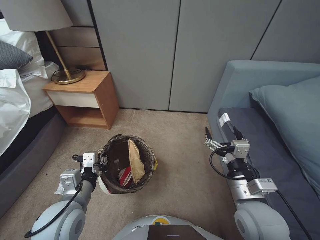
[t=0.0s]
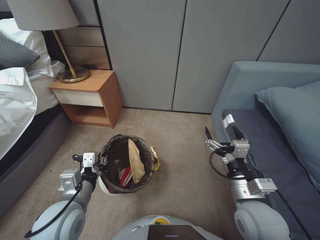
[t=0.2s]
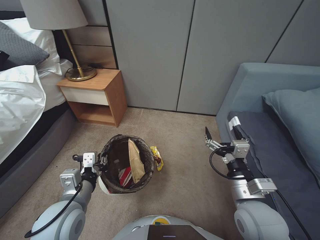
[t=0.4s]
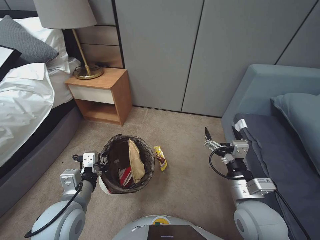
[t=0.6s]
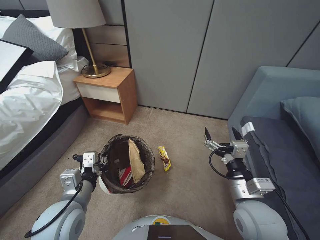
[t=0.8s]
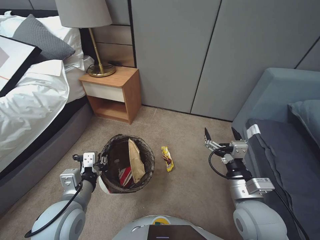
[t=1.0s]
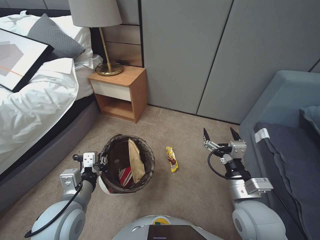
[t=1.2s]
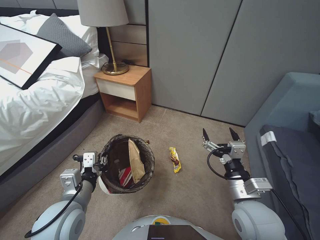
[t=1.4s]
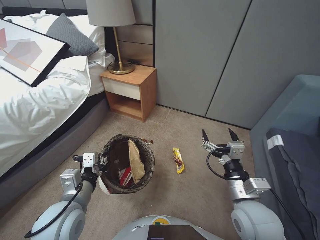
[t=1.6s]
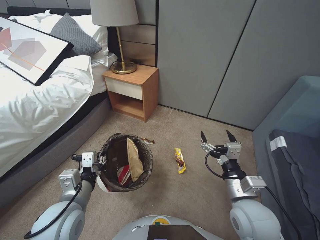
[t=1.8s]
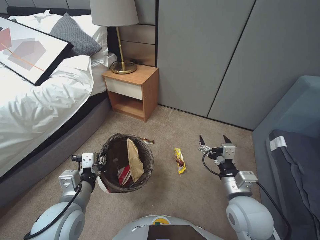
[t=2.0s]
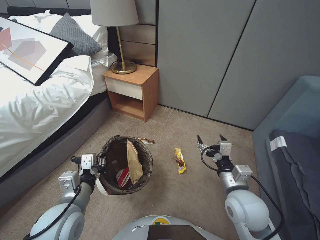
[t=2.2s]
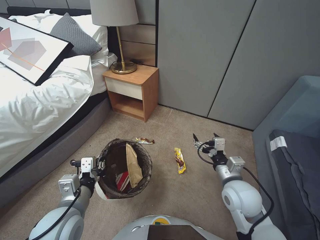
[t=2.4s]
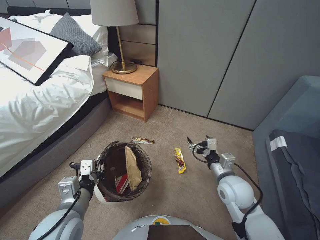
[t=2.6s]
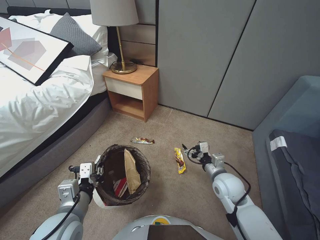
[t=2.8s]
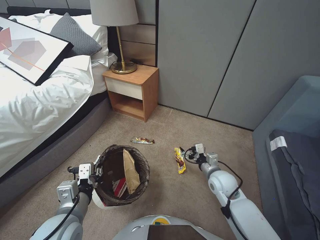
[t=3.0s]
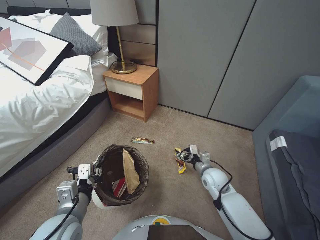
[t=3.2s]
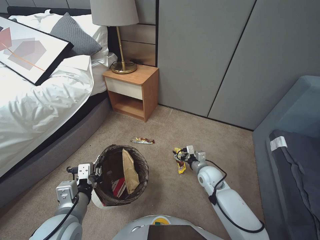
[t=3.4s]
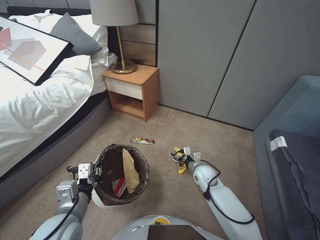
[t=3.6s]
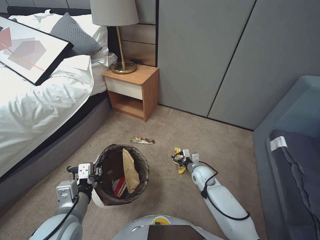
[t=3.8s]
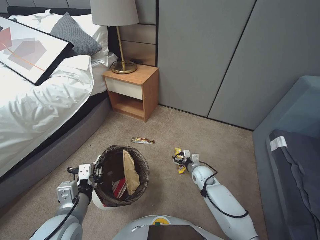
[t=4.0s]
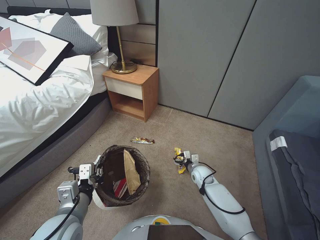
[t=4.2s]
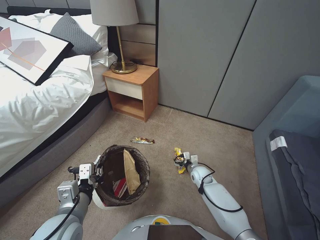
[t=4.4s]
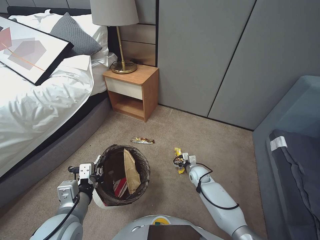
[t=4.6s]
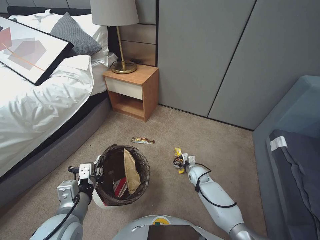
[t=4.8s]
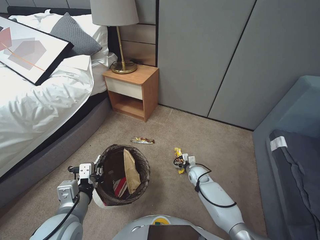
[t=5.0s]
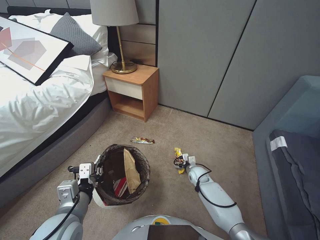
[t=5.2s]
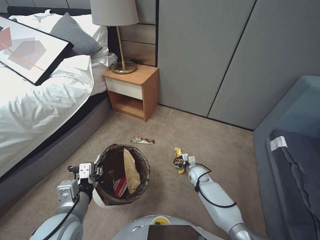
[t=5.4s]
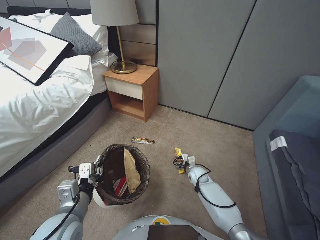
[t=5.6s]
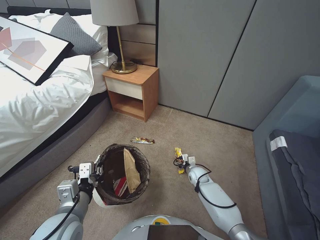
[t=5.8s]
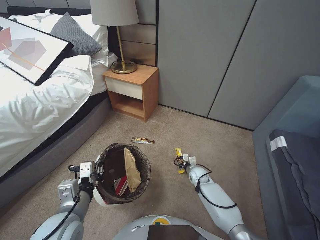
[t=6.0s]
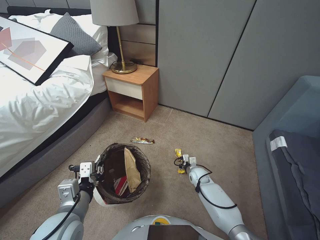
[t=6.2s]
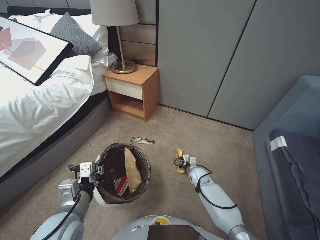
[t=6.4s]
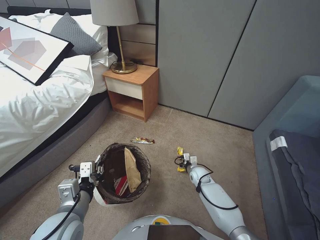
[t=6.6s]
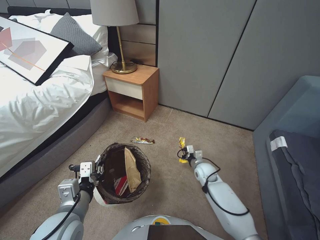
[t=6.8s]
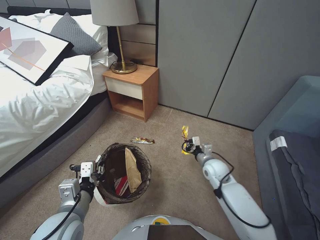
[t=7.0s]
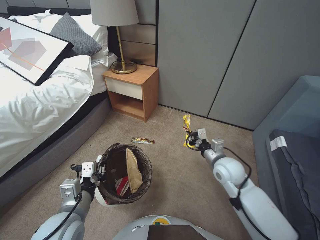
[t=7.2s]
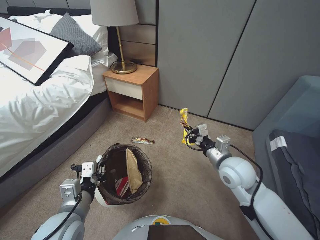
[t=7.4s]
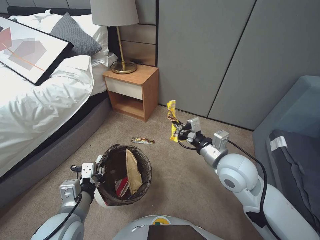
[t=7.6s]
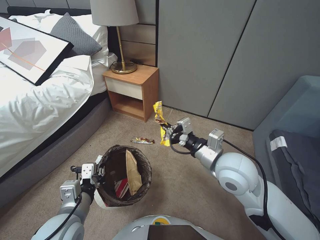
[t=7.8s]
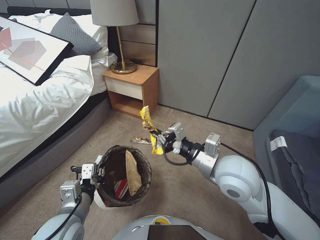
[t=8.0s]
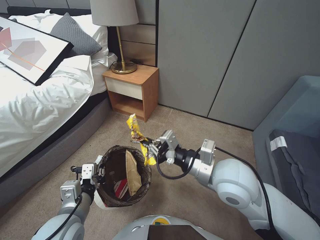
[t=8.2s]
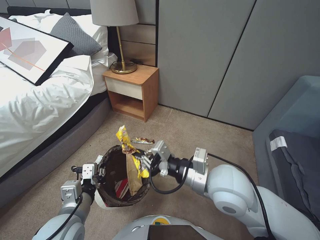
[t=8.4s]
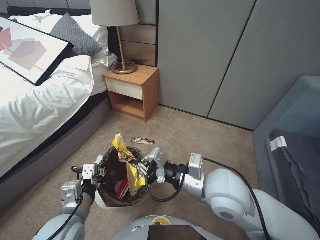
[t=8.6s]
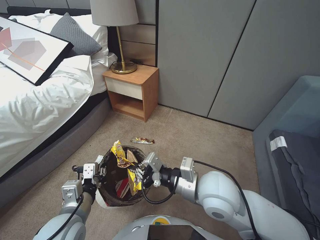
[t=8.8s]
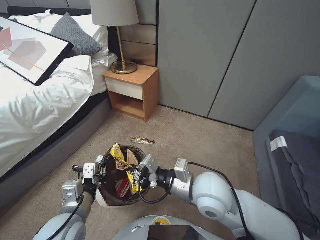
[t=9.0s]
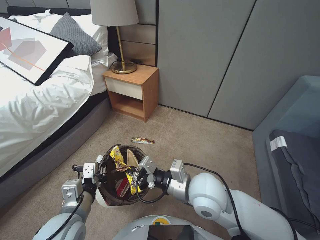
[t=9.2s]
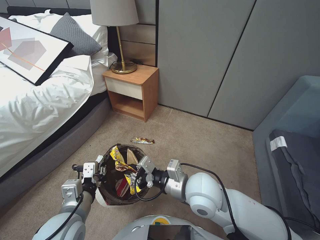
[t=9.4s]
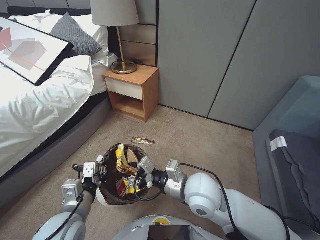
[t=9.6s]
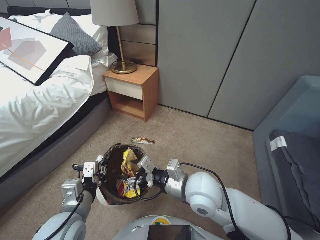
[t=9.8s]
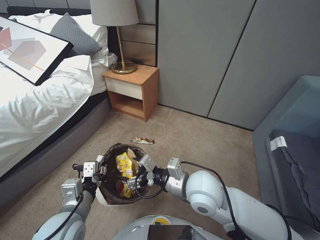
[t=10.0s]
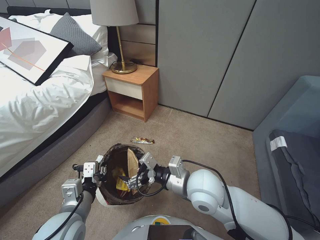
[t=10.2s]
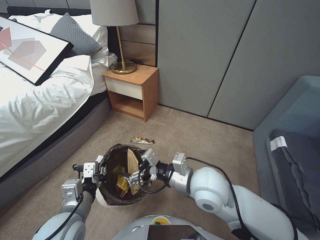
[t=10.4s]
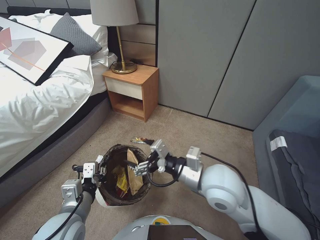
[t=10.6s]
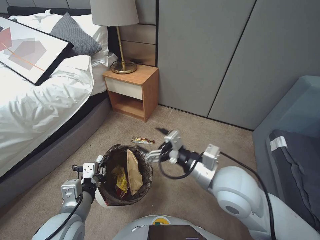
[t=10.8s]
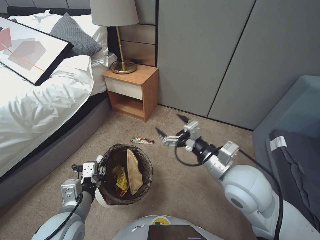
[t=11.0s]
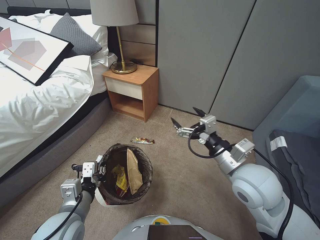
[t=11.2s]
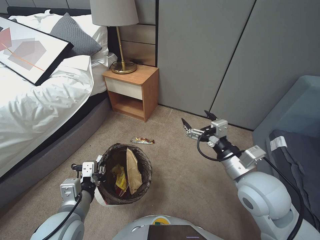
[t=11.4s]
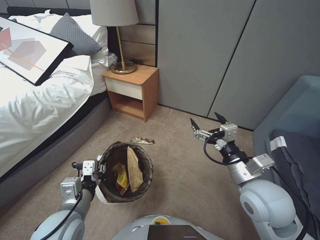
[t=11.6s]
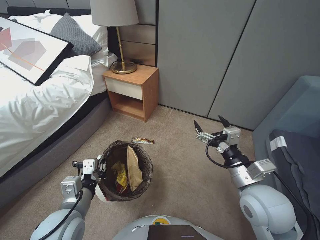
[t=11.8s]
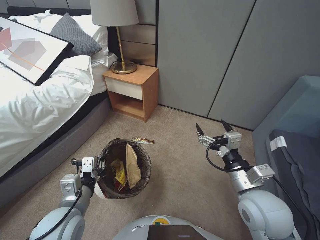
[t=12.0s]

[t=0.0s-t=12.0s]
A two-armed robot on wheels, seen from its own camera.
Task of the whole recording: Pick up the trash bin, then pick up the garbage from the floor and place it into the trash bin.
t=1.6s to t=3.0s: The right gripper moves forward and downward, some 15 cm.
t=3.0s to t=4.4s: The right gripper travels downward and forward by roughly 15 cm.
t=4.4s to t=6.0s: The right gripper closes up.
t=6.0s to t=7.6s: The right gripper moves upward, about 35 cm, and closes.
t=7.6s to t=9.0s: The right gripper shifts about 10 cm to the left and backward.
t=9.0s to t=10.4s: The right gripper opens its fingers.
t=10.4s to t=12.0s: The right gripper shifts some 15 cm to the right.

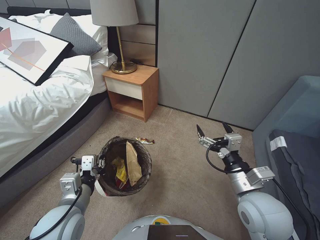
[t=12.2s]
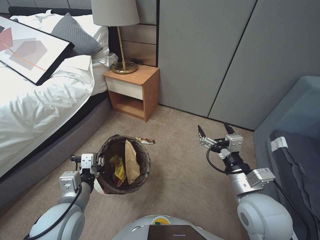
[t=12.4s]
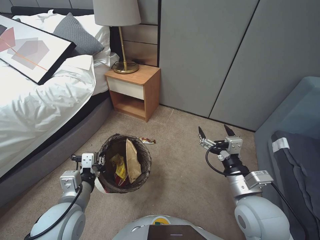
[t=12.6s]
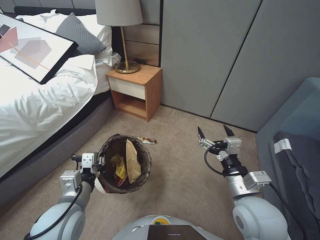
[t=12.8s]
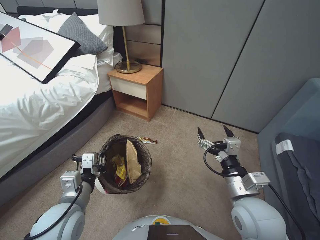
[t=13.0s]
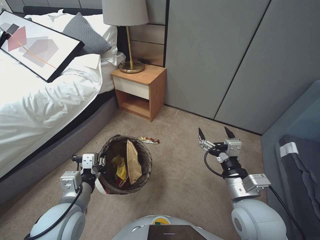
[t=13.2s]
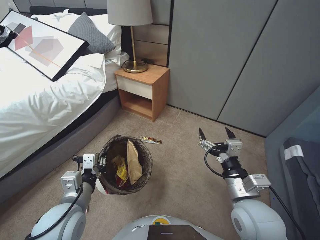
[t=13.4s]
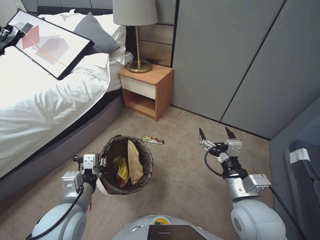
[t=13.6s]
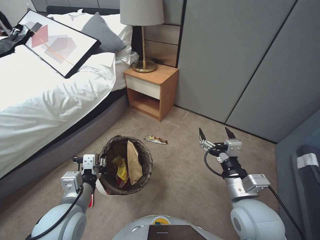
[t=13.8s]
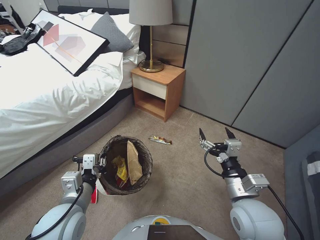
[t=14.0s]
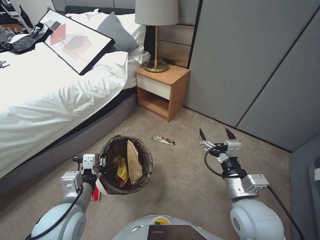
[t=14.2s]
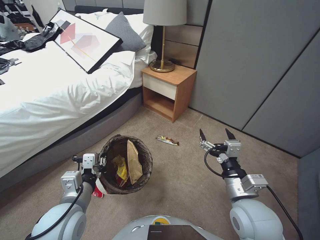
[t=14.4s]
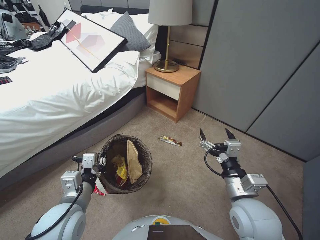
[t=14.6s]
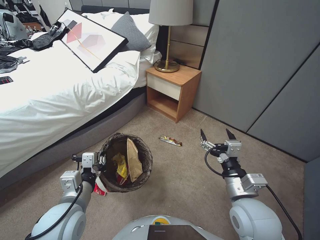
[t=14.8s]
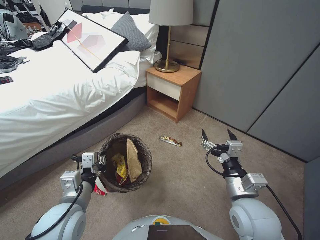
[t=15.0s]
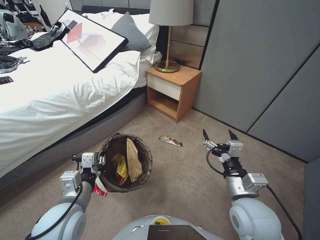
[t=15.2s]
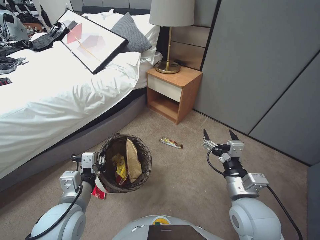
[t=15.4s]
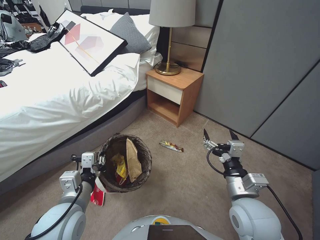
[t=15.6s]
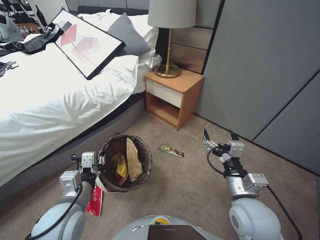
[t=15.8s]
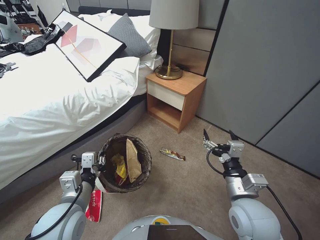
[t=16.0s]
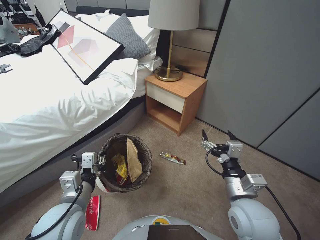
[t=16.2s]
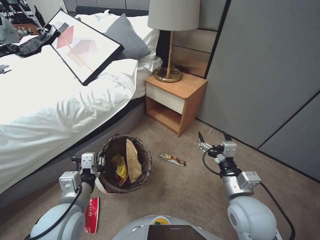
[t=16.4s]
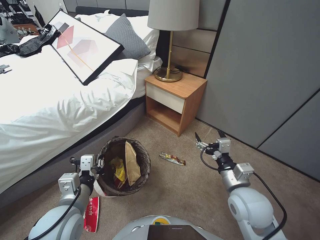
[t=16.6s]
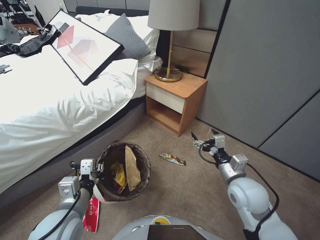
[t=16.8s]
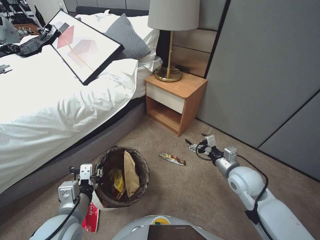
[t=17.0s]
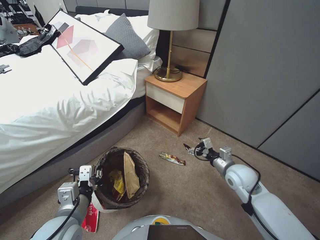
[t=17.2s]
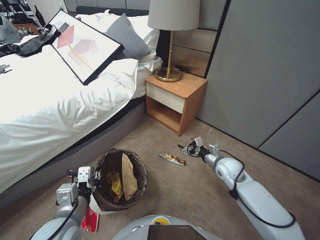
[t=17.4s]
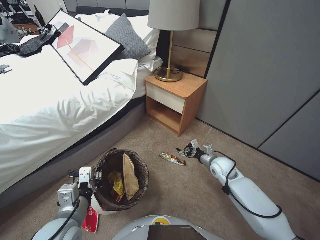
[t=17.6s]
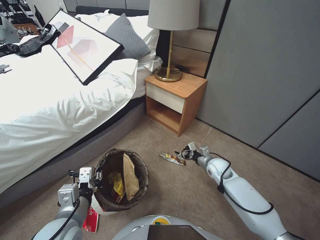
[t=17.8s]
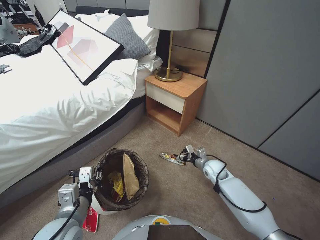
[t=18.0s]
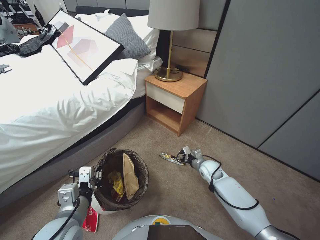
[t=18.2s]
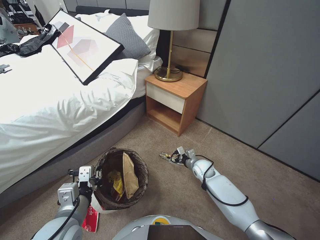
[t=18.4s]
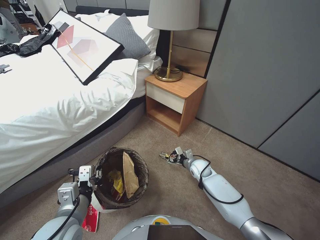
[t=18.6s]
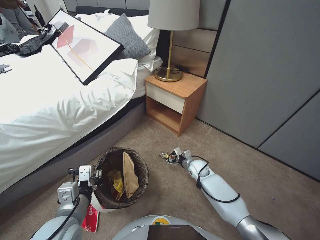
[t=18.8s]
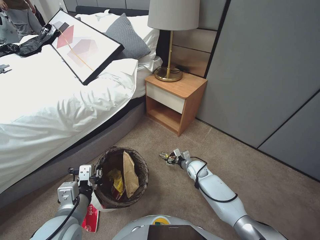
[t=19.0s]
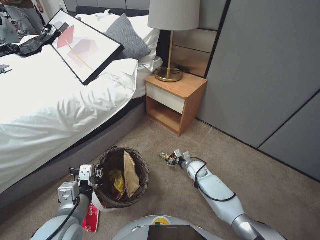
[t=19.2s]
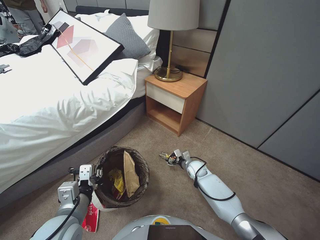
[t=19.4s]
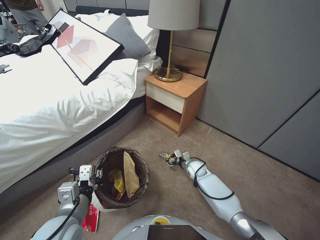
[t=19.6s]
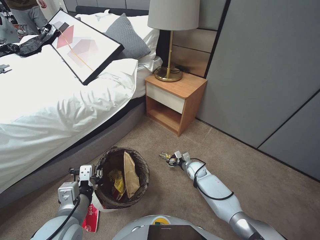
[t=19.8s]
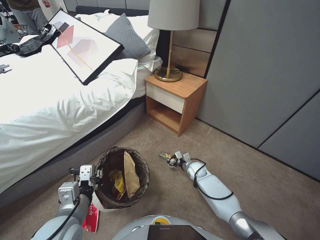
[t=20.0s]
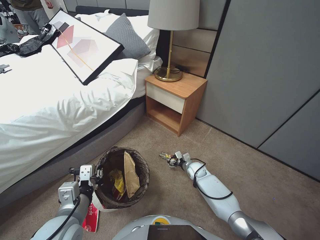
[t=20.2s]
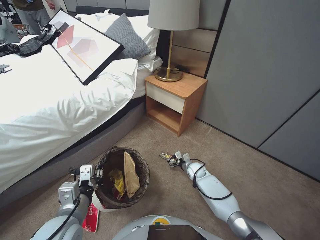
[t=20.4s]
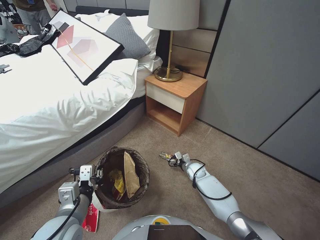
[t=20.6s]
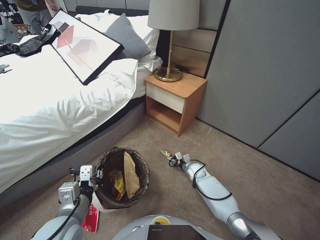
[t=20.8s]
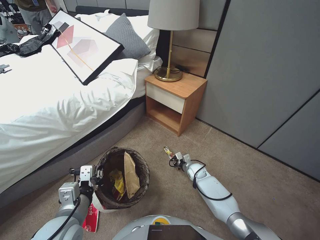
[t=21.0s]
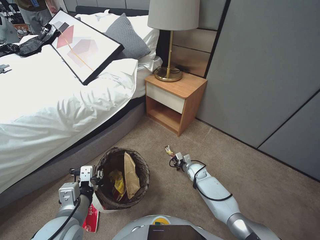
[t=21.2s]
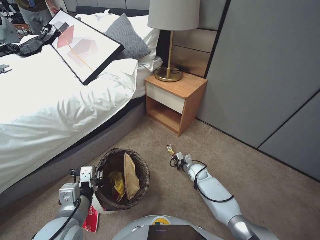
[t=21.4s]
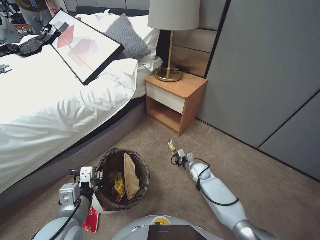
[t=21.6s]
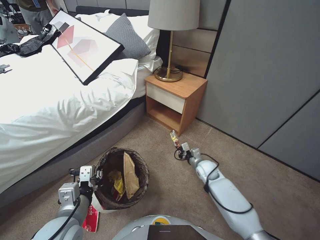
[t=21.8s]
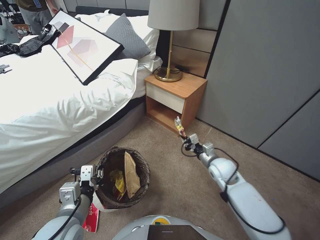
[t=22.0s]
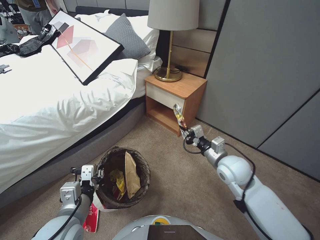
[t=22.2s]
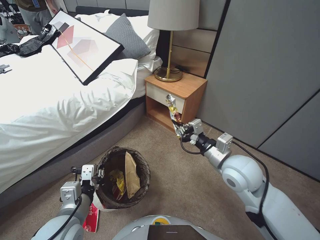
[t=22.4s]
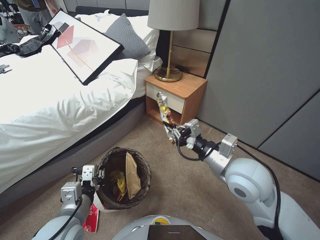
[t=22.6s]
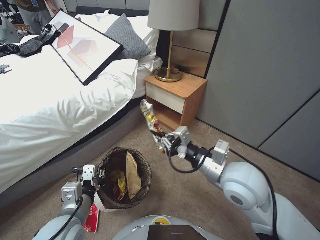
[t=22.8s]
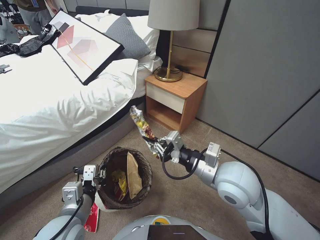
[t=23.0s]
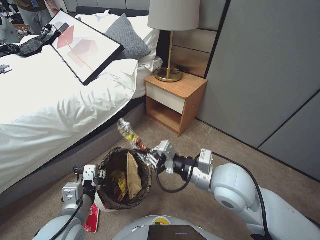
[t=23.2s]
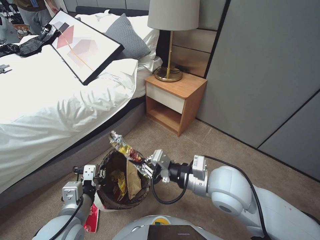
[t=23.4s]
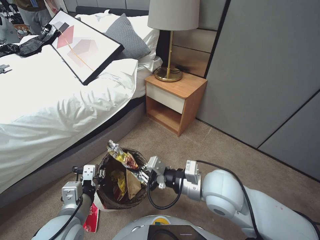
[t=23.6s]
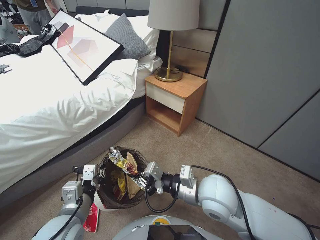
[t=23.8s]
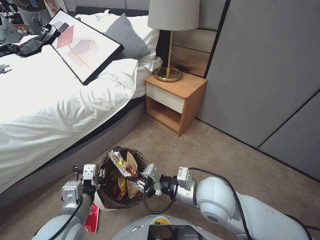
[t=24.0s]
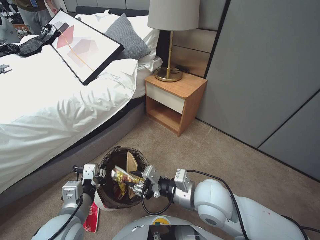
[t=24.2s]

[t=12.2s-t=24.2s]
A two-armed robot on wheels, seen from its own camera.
Task of the whole recording: Pick up the trash bin, then pick up the garbage from the floor and place it into the trash bin.
t=16.6s to t=18.2s: The right gripper moves forward and downward, some 25 cm.
t=18.2s to t=19.8s: The right gripper heads downward, covering some 5 cm.
t=19.8s to t=21.2s: The right gripper closes its fingers.
t=21.2s to t=22.6s: The right gripper is displaced upward and backward by roughly 40 cm.
t=22.6s to t=24.2s: The right gripper shifts some 10 cm to the left and downward.
